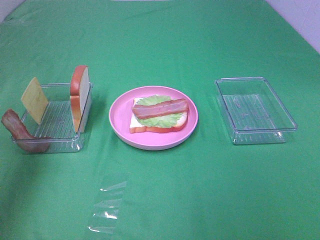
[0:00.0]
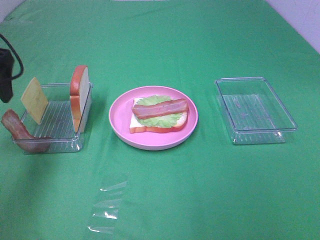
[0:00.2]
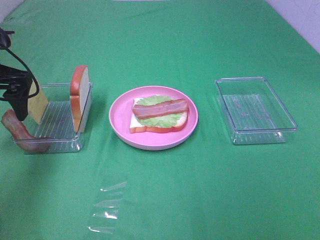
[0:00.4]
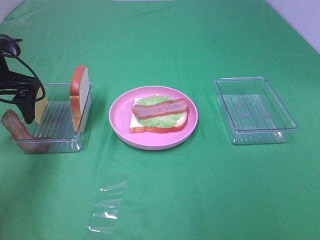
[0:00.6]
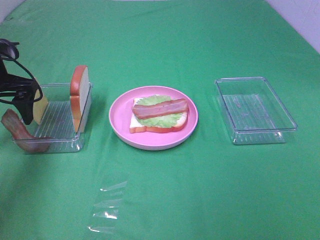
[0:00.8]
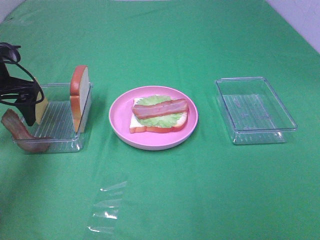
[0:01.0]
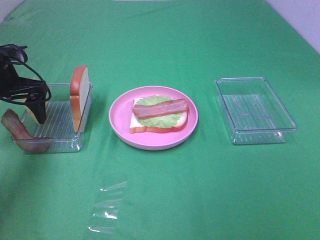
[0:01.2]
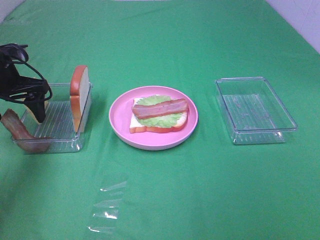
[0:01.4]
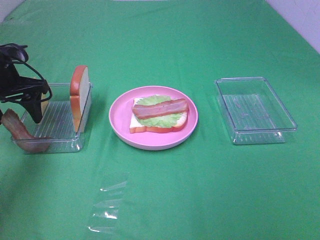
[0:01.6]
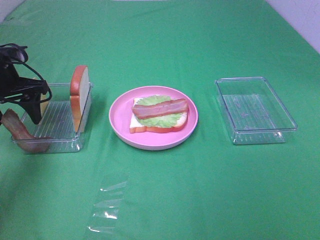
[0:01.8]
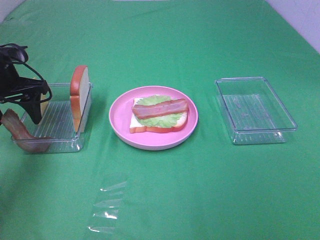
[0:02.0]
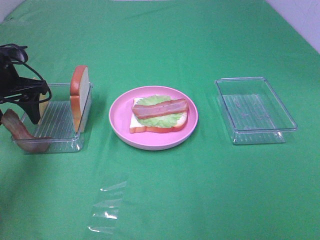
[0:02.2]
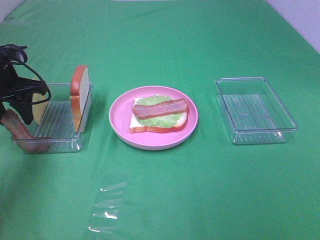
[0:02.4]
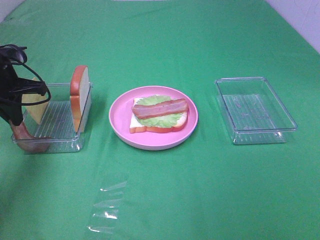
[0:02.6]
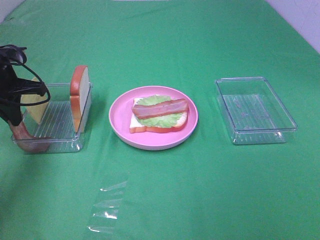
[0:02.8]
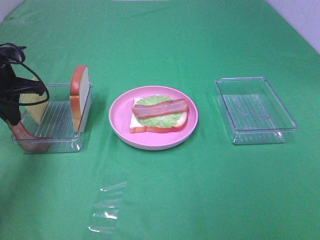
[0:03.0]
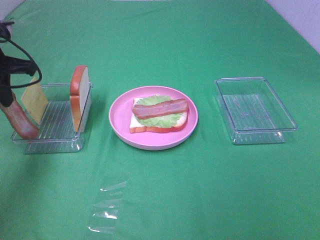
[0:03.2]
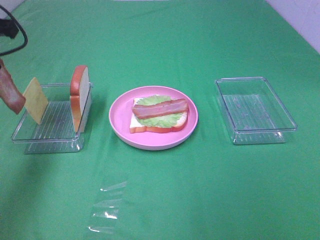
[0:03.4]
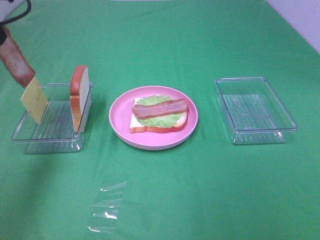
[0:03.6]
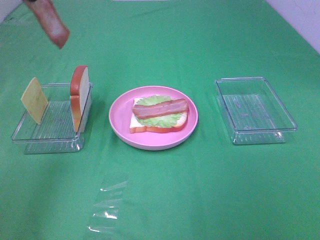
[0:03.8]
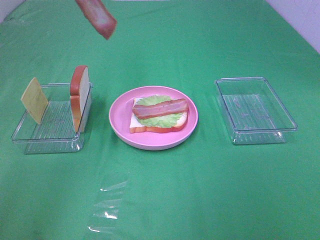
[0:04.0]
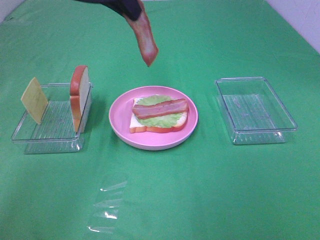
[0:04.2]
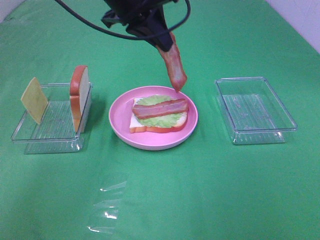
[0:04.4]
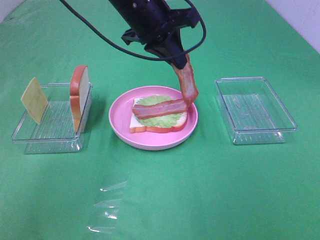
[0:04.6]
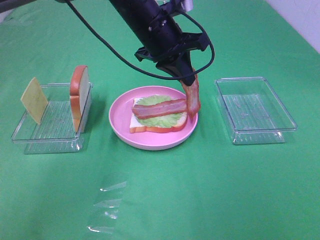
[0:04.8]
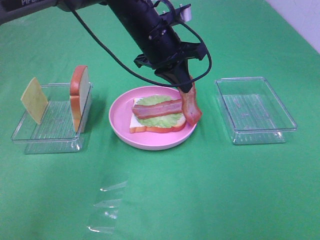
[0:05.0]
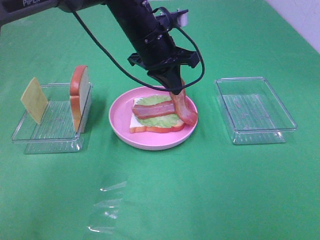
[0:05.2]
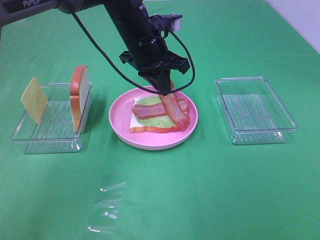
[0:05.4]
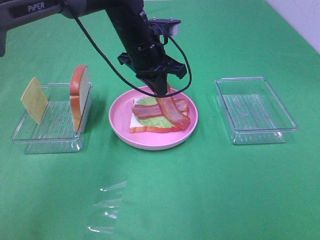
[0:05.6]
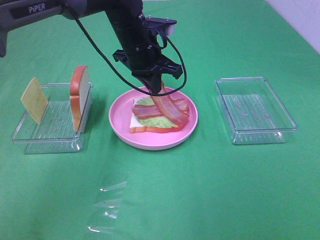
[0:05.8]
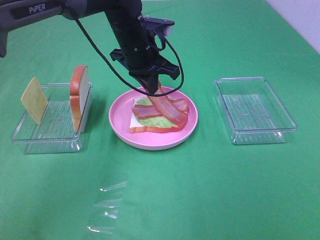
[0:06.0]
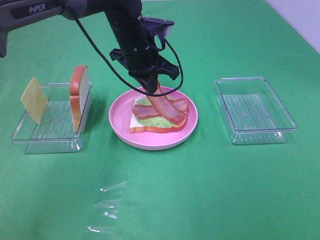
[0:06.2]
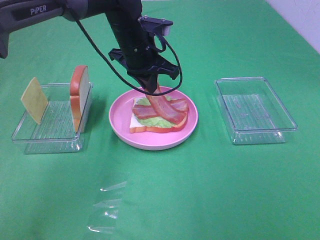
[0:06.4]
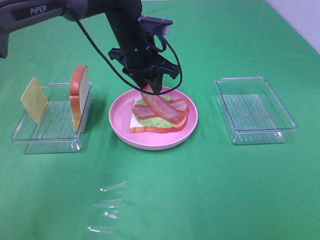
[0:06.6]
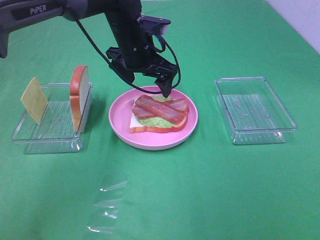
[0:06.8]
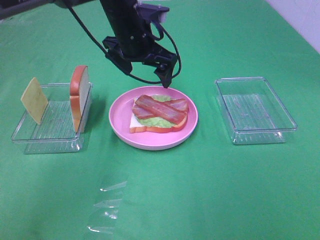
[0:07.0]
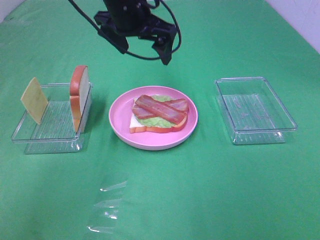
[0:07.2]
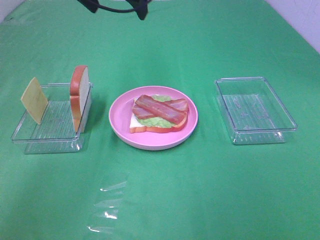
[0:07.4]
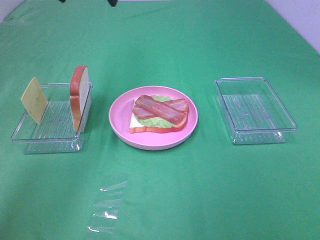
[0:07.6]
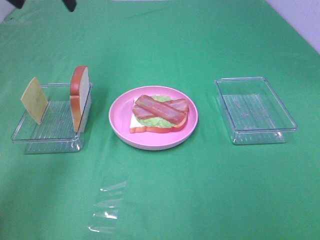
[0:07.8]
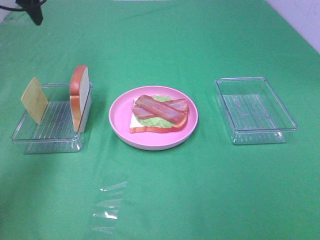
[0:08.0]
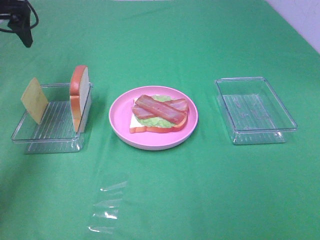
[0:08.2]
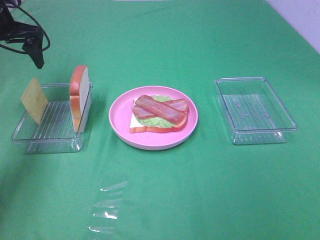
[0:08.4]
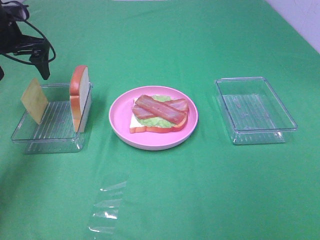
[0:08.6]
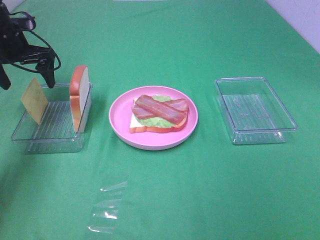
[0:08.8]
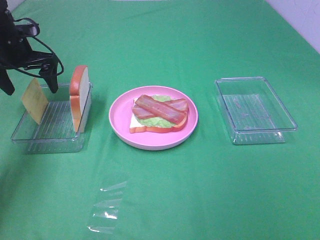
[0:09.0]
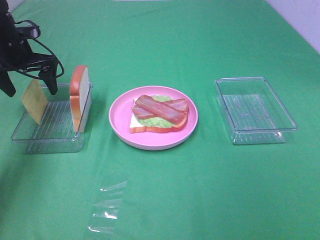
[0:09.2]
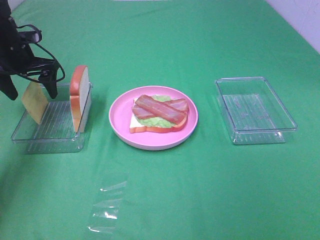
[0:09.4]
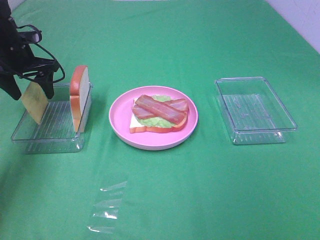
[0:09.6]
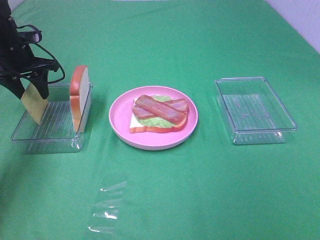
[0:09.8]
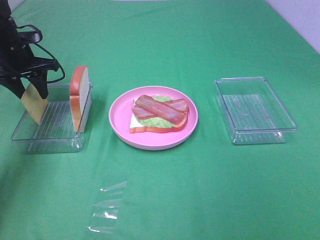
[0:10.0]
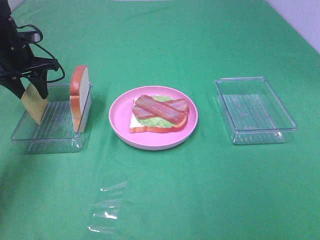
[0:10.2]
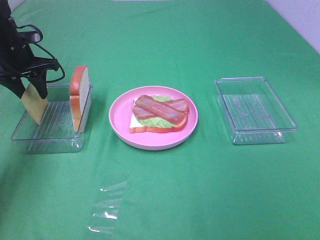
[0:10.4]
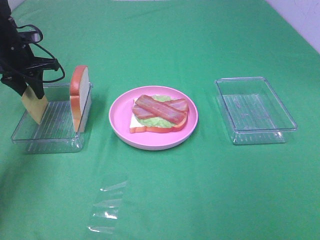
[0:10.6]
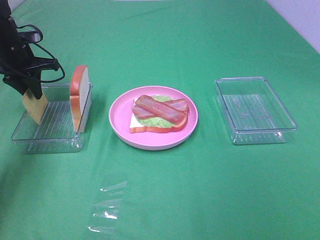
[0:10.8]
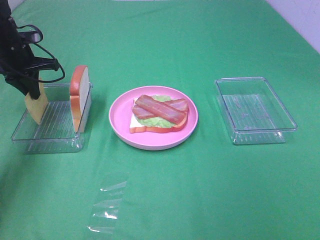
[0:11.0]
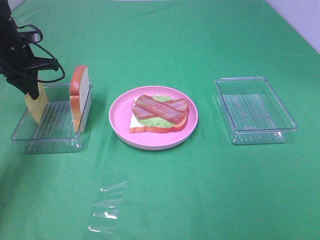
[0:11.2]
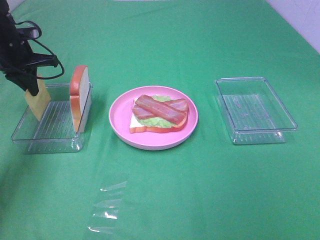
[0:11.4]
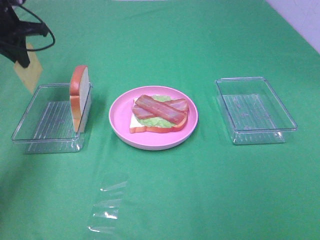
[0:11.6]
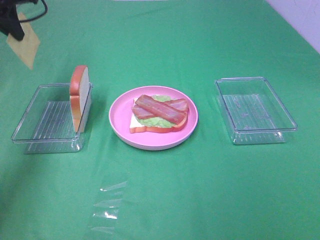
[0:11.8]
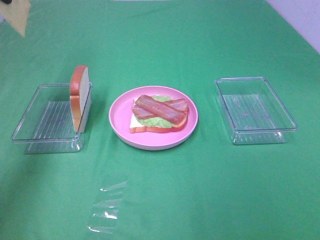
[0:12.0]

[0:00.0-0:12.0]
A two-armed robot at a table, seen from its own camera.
Task of the whole recording: Make sandwiches.
Step, 0.0 to 2.8 s: Left hand:grab the bacon.
Step, 3.0 to 6.6 s: Left hand:place bacon on bacon.
Step, 6.8 to 11.2 s: Left hand:grab the cheese slice.
0.0 to 1.6 s: The left gripper moves downward and forward, some 15 cm.
1.6 to 3.0 s: The left gripper closes.
3.0 to 4.4 s: The left gripper travels to the right and upward by some 25 cm.
4.4 to 6.0 s: The left gripper moves downward, some 10 cm.
6.0 to 7.6 s: The left gripper shifts about 20 cm upward and to the left, and opens up.
7.6 to 9.0 s: The left gripper travels downward and to the left by approximately 25 cm.
9.0 to 10.4 s: The left gripper closes.
10.4 to 12.0 s: The left gripper travels upward by roughly 20 cm, and closes up.

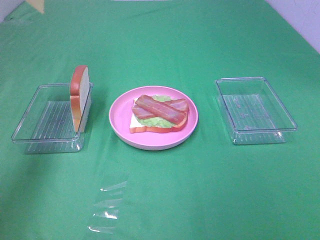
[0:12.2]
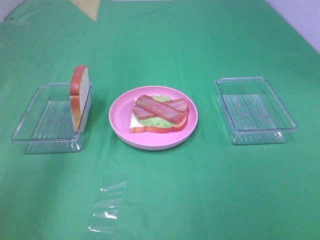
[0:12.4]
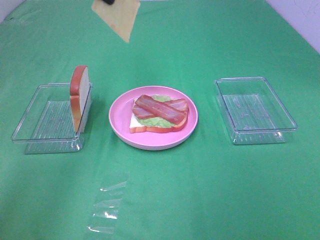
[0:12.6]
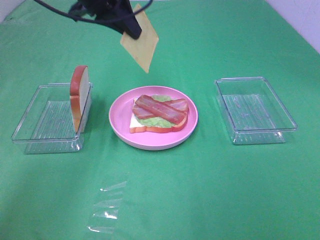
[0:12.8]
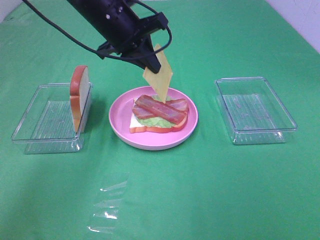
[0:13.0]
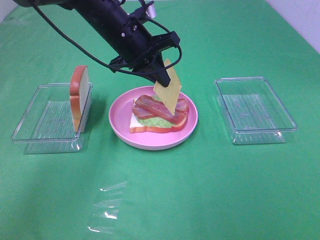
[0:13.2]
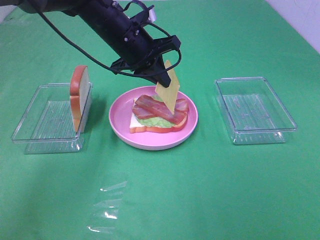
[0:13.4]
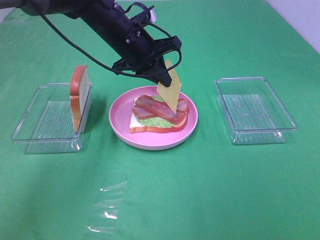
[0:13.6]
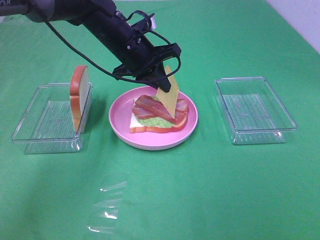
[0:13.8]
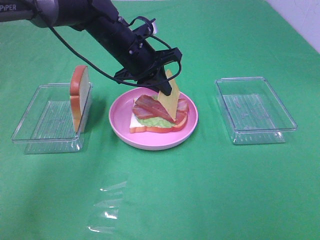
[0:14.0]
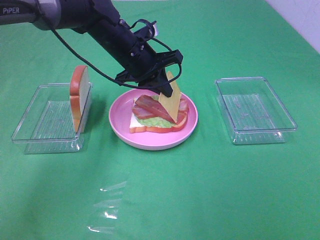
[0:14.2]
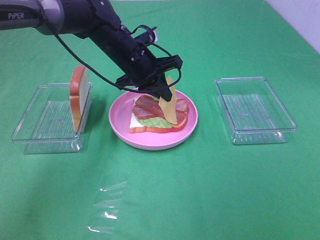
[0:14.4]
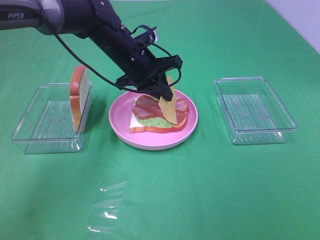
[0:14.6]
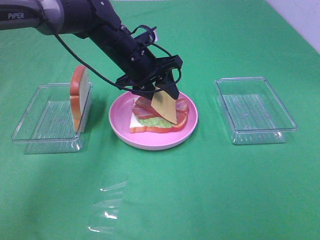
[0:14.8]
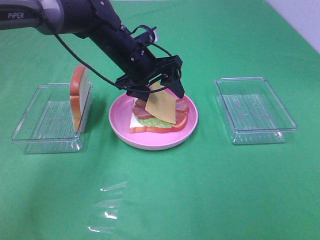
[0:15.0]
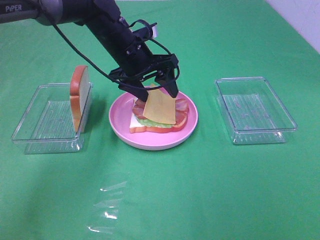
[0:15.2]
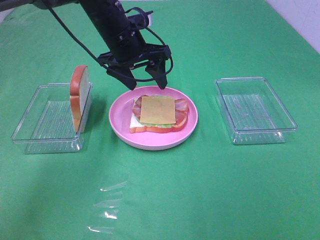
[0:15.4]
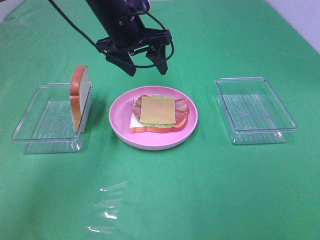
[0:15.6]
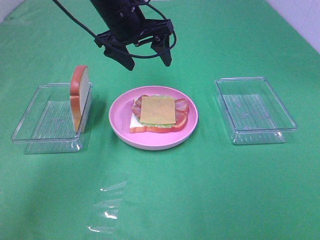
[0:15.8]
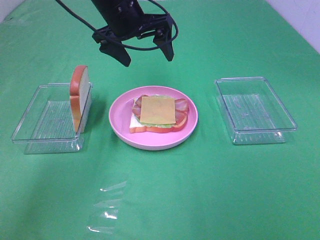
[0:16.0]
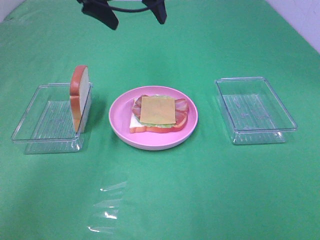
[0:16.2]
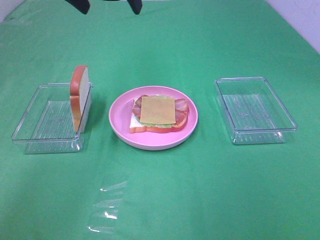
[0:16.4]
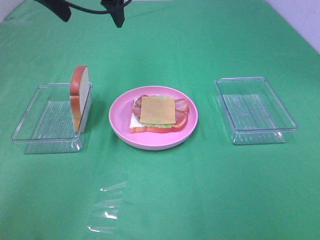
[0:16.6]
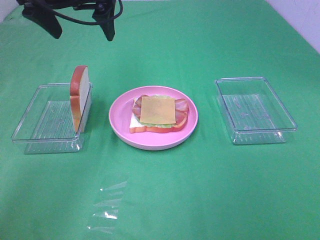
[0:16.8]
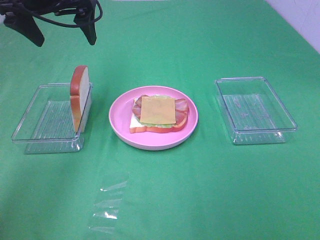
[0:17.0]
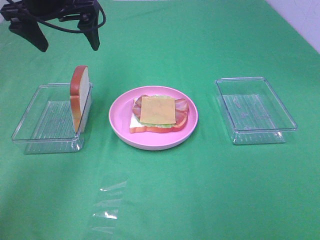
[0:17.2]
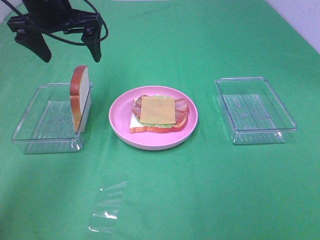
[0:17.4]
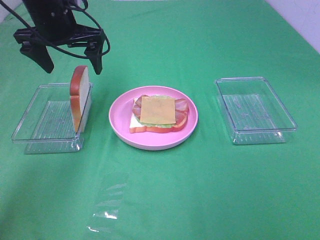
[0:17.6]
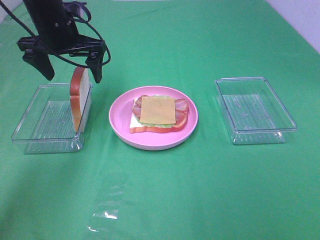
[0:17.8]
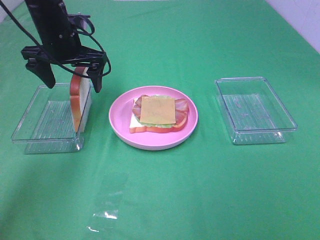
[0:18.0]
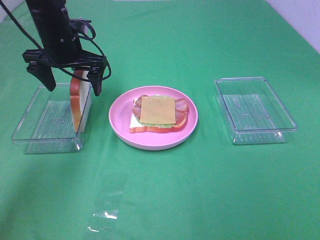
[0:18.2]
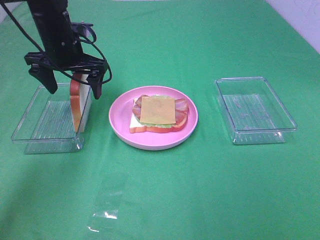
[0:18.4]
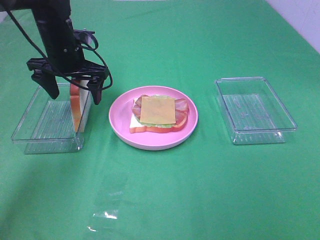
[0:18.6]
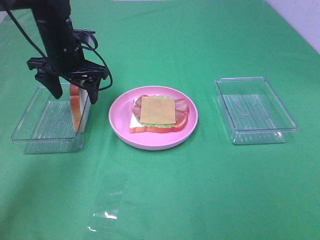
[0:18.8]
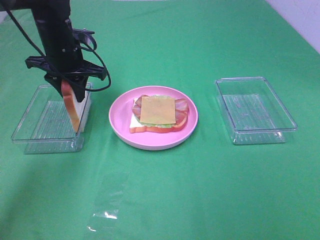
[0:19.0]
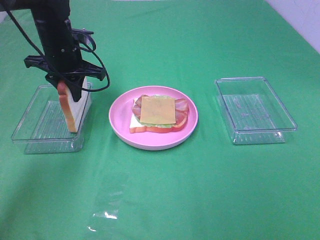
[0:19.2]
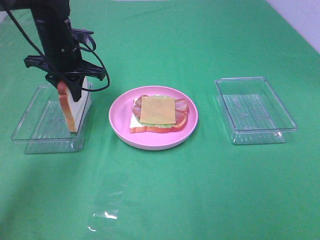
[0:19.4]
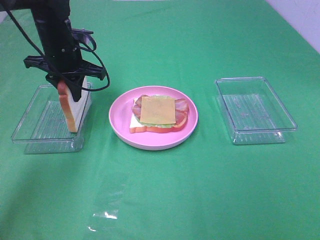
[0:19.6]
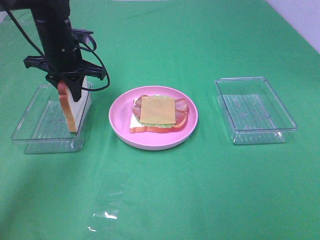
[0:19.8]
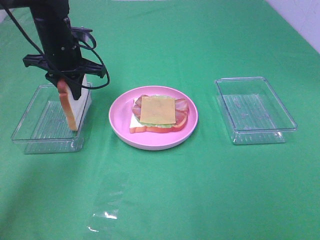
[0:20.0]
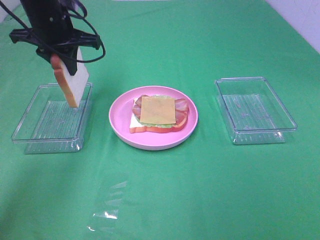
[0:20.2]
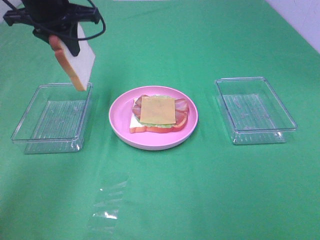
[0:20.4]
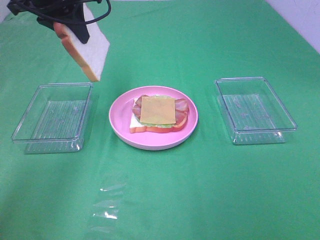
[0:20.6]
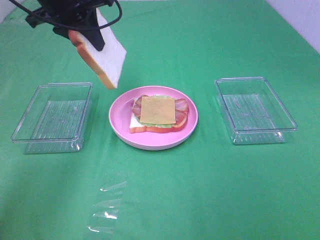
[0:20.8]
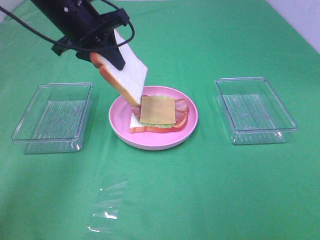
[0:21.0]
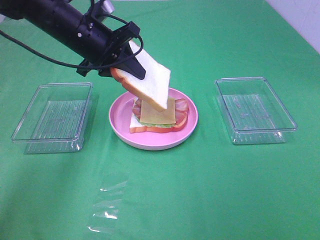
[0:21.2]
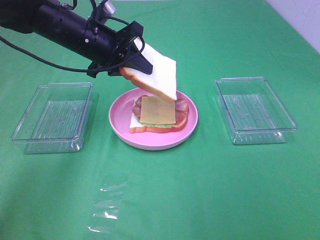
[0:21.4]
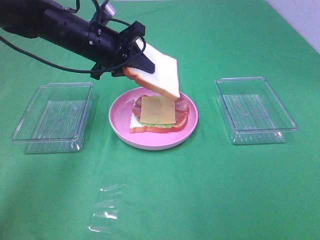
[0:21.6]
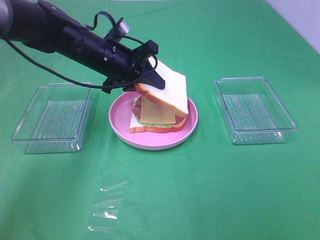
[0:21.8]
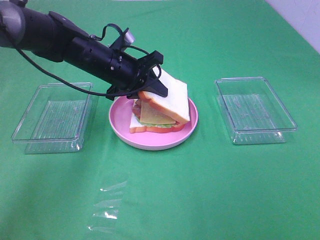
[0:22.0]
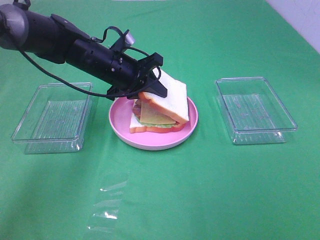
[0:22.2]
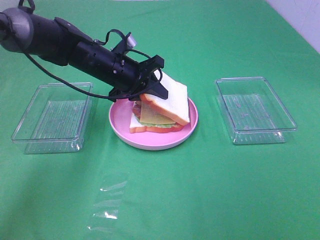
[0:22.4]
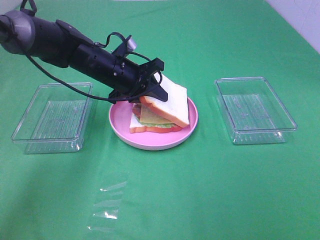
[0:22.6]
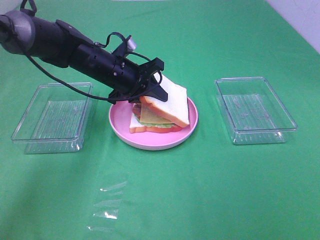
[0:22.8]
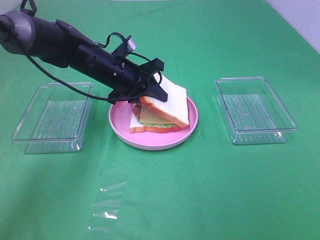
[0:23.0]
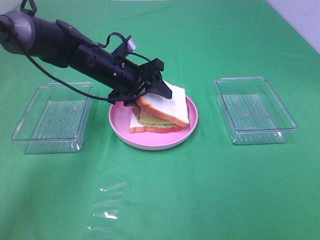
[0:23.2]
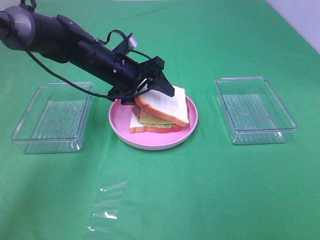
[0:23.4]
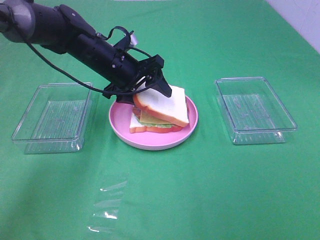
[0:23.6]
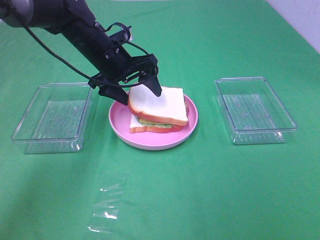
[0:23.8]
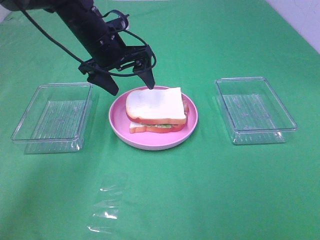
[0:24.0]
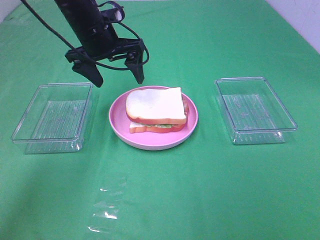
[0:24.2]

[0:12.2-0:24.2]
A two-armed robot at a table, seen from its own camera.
Task of the whole recording: Make sandwiches.
Step, 12.2 to 15.2 s: Left hand:place the cheese slice on top of the bacon.
Step, 15.4 to 19.0 s: Left hand:grab the bread slice.
Step, 19.2 to 24.0 s: Left hand:place the bread slice on the cheese slice.
12.2 to 13.8 s: The left gripper shifts about 30 cm downward and to the right.
13.8 to 15.2 s: The left gripper opens its fingers.
15.2 to 16.6 s: The left gripper goes some 15 cm upward and to the left.
16.6 to 18.2 s: The left gripper is displaced downward by approximately 15 cm.
18.2 to 19.8 s: The left gripper closes.
19.8 to 21.2 s: The left gripper goes upward and returns, roughly 15 cm each way.
21.2 to 22.6 s: The left gripper goes roughly 10 cm downward.
22.6 to 24.2 s: The left gripper shifts roughly 10 cm upward, and opens up.
